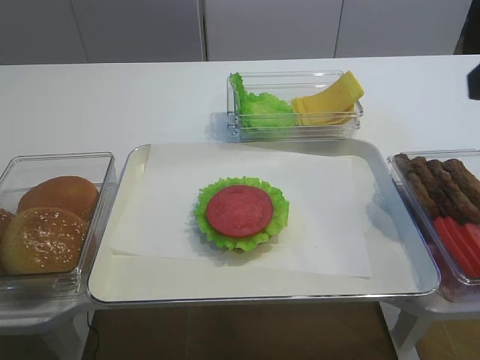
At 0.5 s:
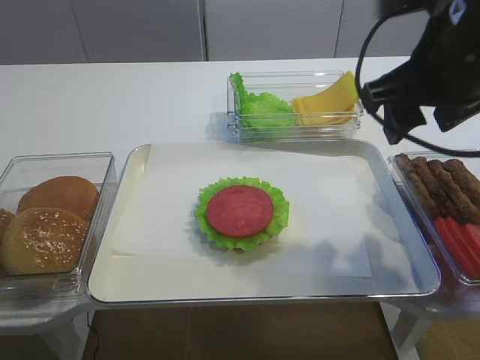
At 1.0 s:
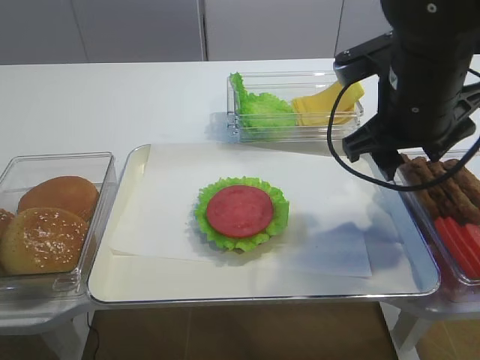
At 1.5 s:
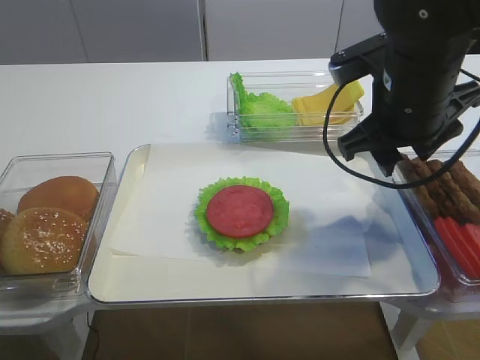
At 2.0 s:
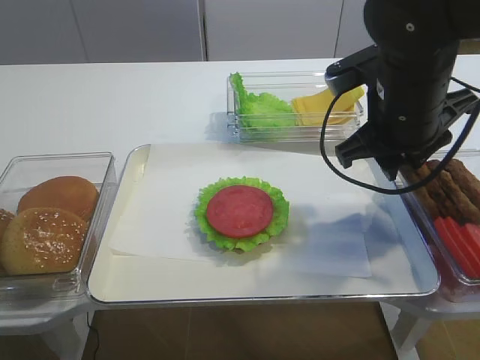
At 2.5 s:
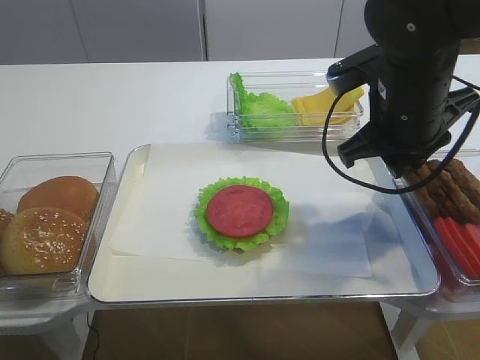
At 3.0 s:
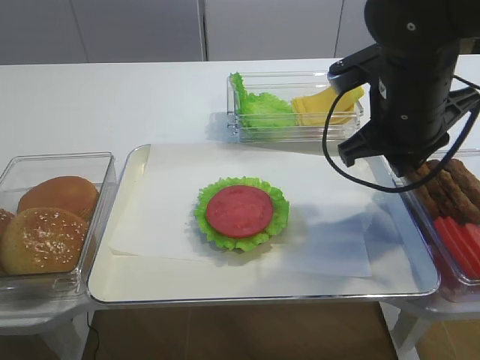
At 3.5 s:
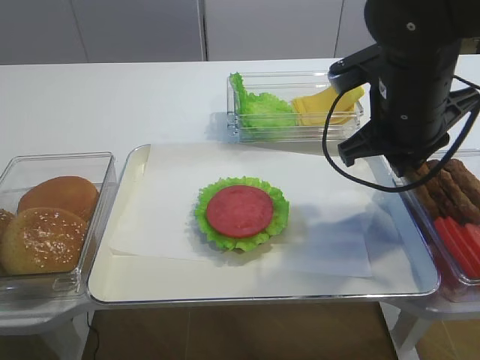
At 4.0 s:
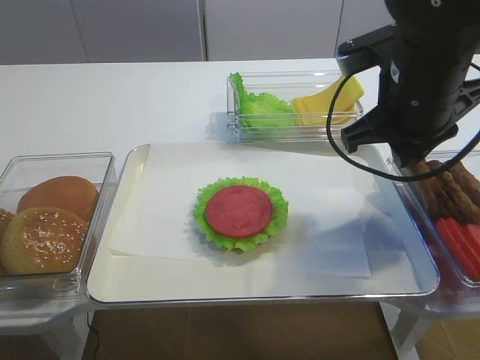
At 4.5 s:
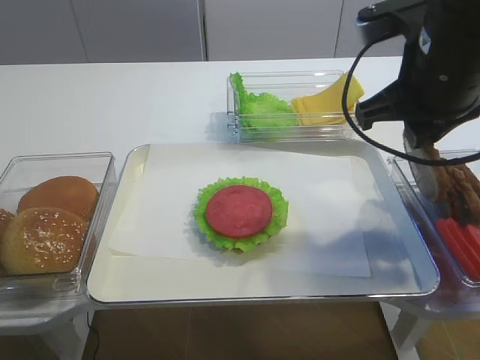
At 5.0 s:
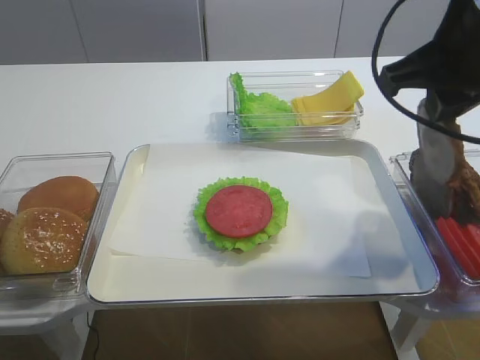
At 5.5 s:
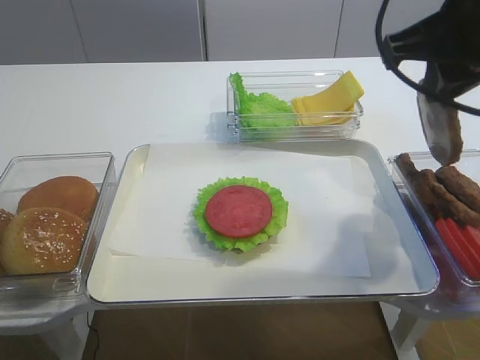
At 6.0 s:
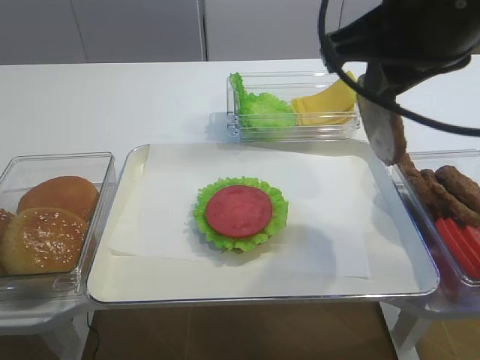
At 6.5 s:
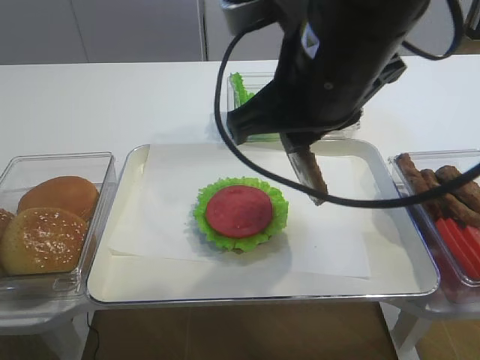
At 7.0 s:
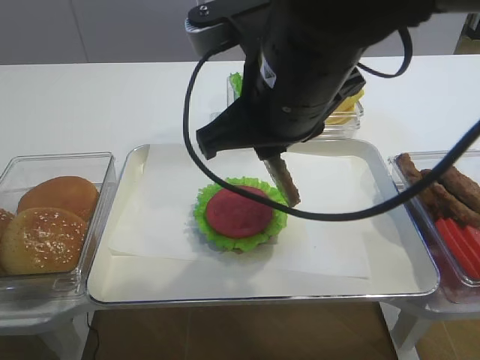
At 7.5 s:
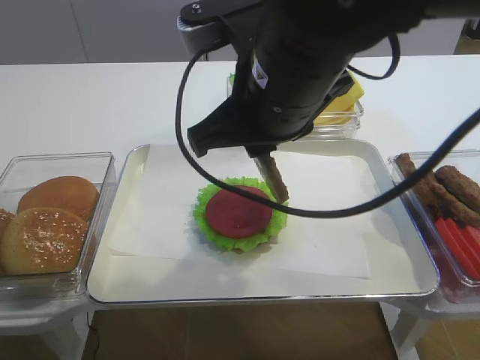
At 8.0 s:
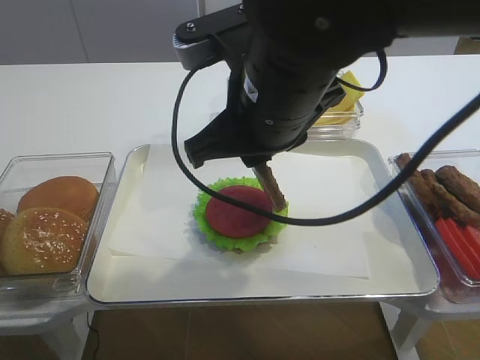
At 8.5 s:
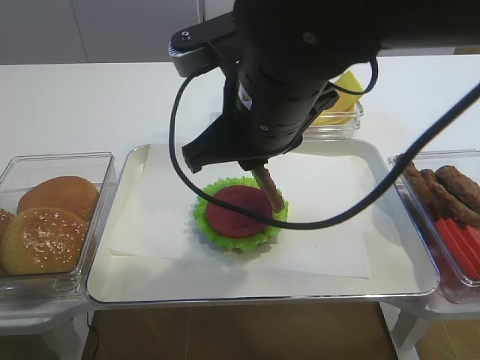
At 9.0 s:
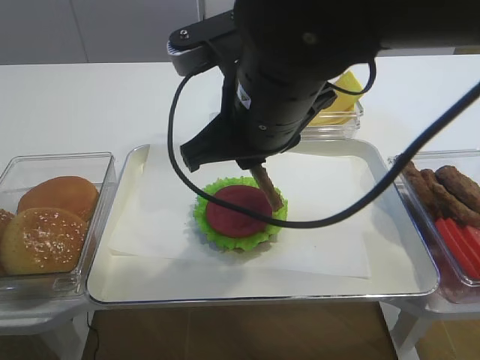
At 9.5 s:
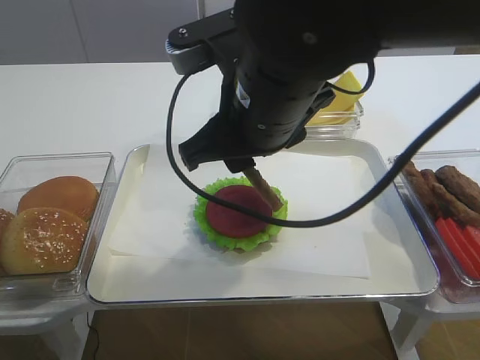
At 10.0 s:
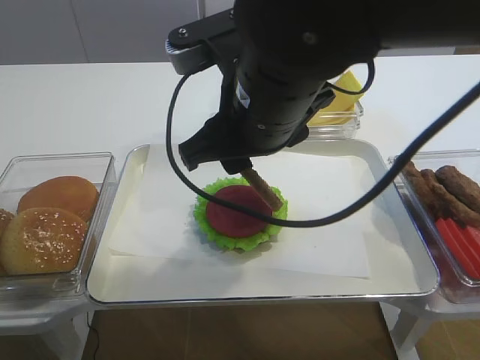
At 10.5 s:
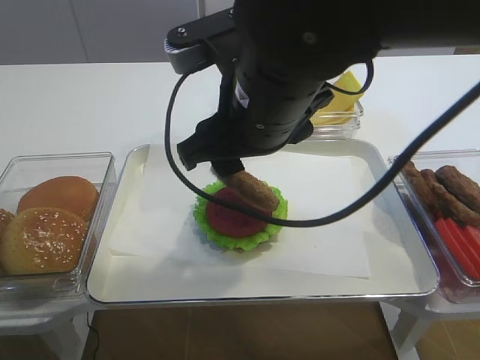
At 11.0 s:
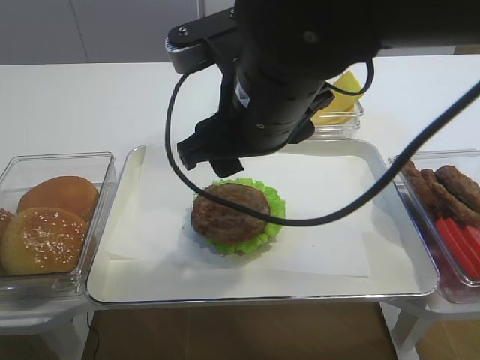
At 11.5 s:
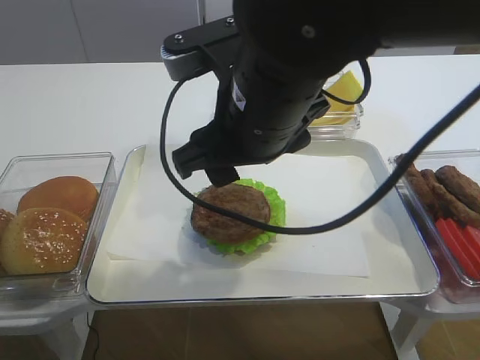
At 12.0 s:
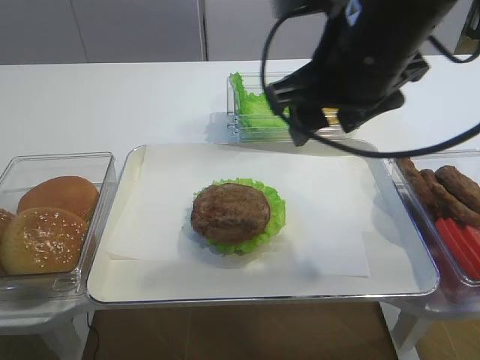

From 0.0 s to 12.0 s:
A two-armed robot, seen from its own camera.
Step, from 0.0 s to 5.0 s: Pick up the cutlet with the right gripper.
Step, from 5.5 s to 11.5 s: Place the cutlet on the tomato slice with the right gripper.
From 0.0 s to 2.0 s: The right gripper moves forward, downward and to the left, approximately 20 cm, and closes up.
From 2.0 s to 4.0 s: The right gripper closes its fingers.
From 4.0 s to 6.0 s: The right gripper moves upward and backward, some 10 cm.
From 6.0 s to 8.0 s: The right gripper travels to the left and downward by roughly 10 cm.
From 8.0 s to 10.0 s: The right gripper opens.
From 10.0 s to 12.0 s: The right gripper travels to the right by roughly 5 cm.

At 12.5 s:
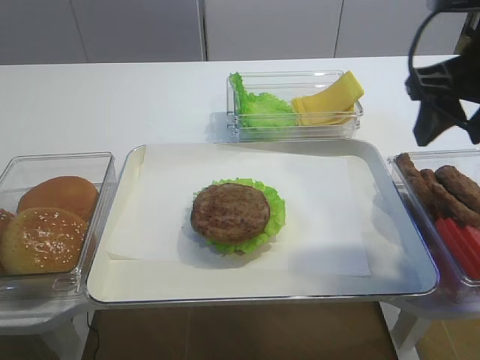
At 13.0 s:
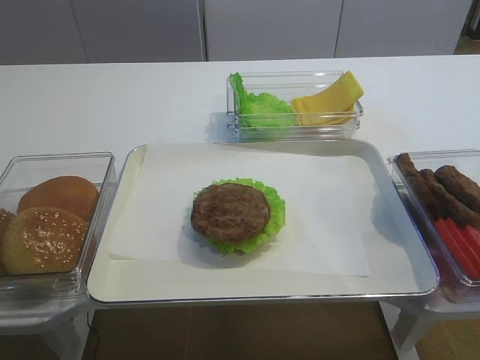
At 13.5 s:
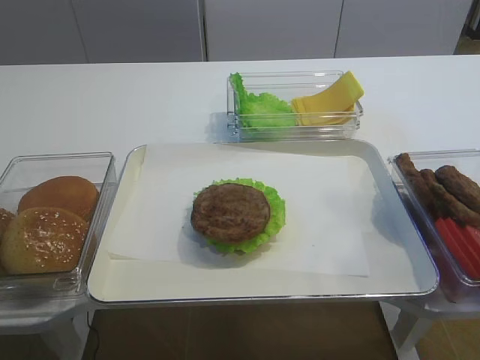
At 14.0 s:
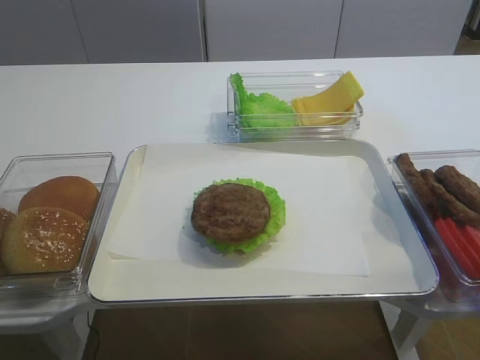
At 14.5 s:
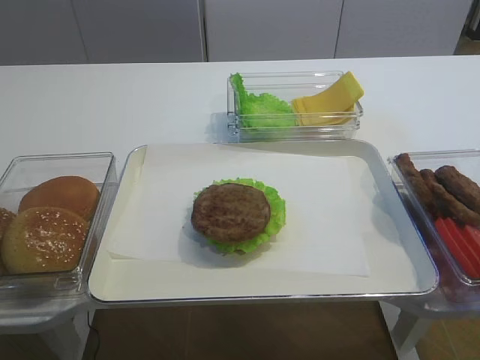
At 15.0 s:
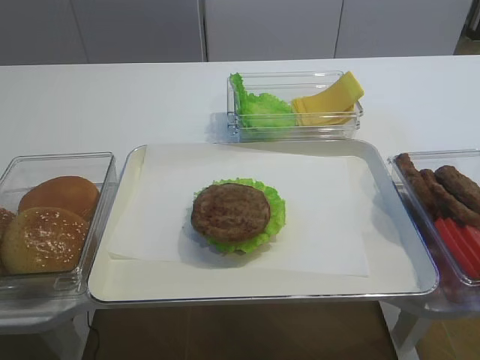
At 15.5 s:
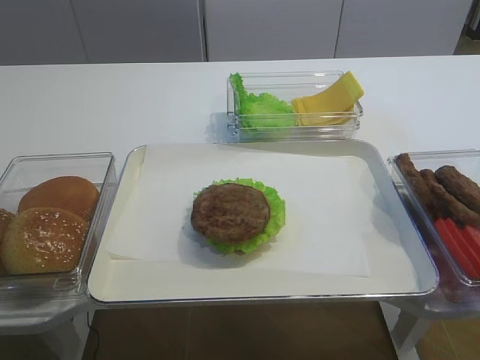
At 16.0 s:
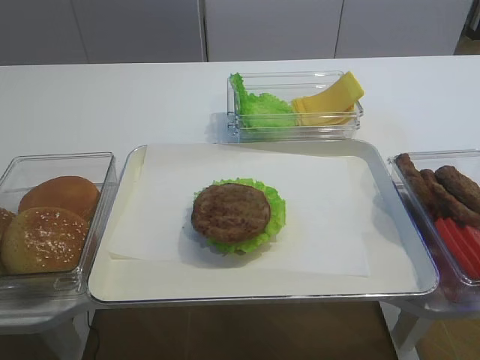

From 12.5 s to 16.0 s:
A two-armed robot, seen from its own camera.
From 12.5 s to 14.5 s: The right gripper moves backward, some 25 cm.

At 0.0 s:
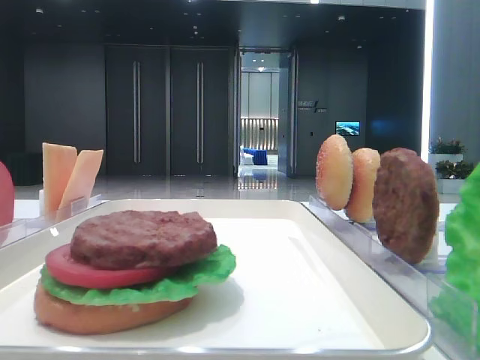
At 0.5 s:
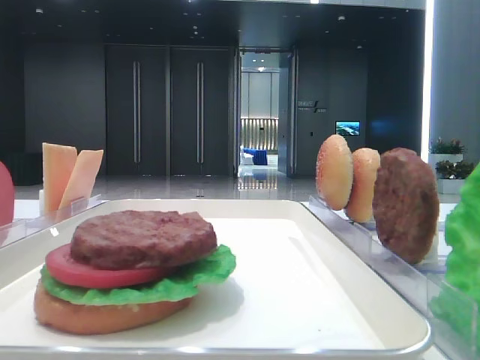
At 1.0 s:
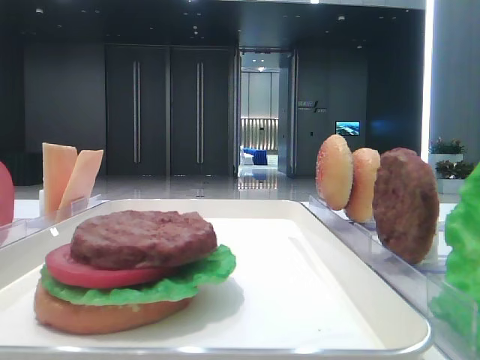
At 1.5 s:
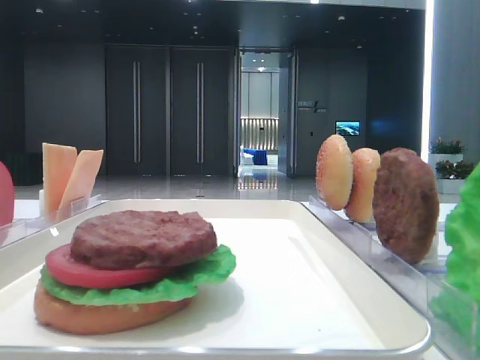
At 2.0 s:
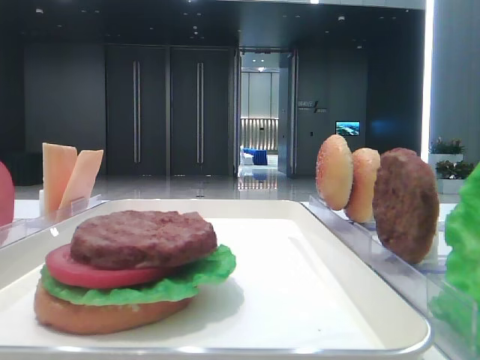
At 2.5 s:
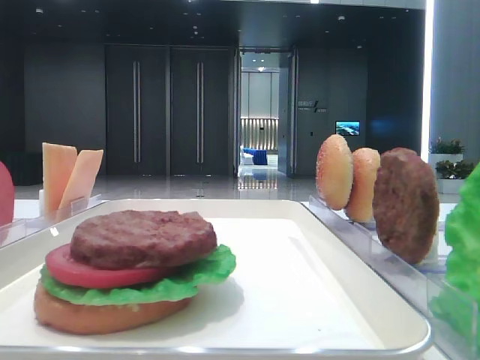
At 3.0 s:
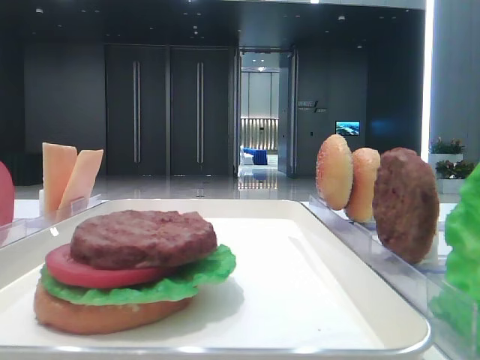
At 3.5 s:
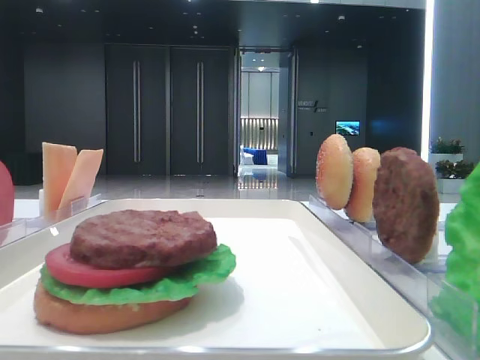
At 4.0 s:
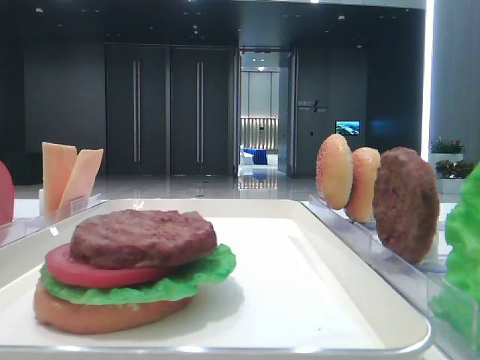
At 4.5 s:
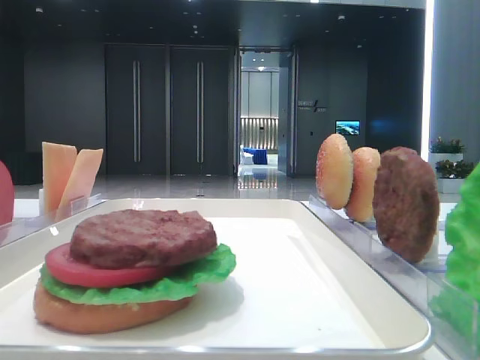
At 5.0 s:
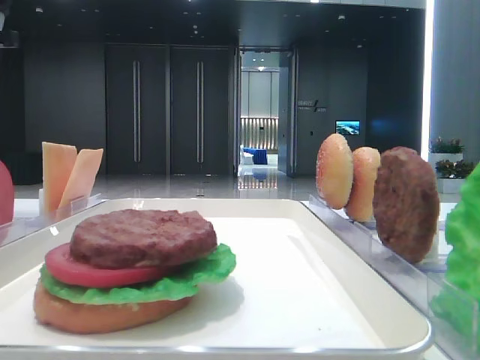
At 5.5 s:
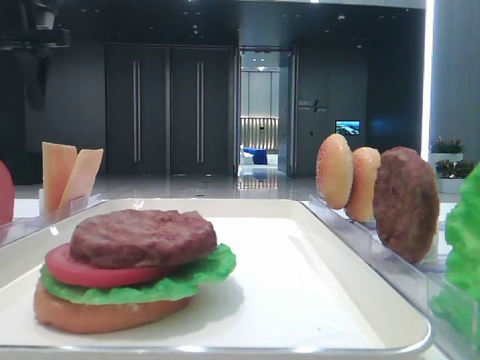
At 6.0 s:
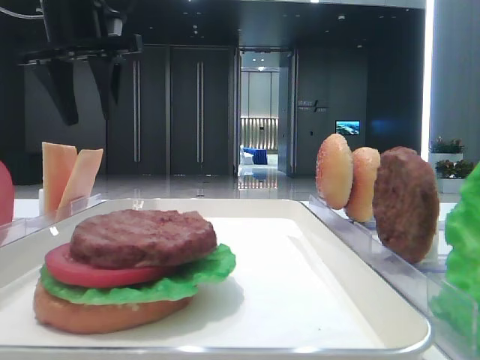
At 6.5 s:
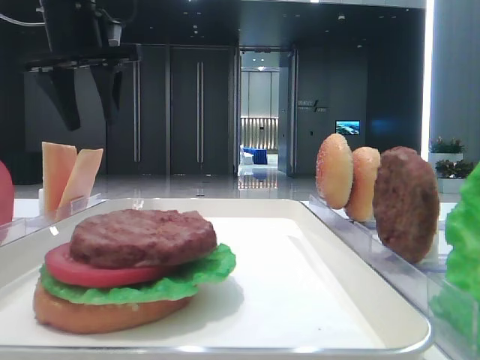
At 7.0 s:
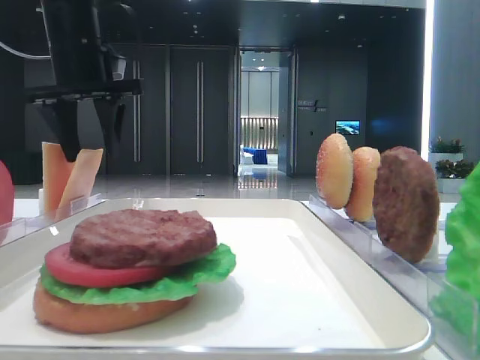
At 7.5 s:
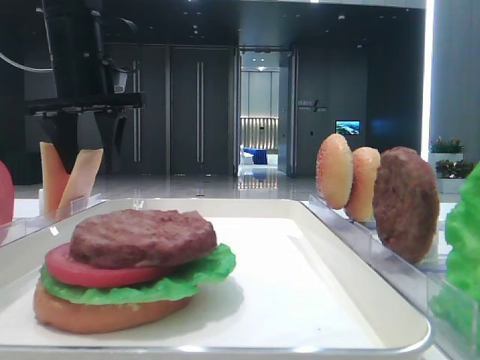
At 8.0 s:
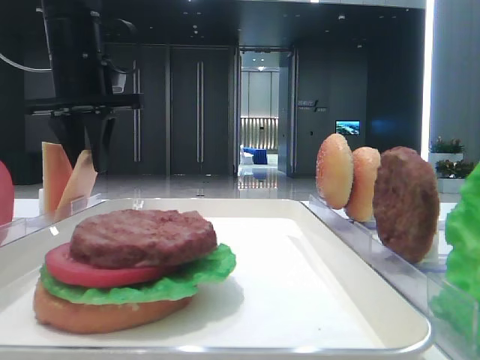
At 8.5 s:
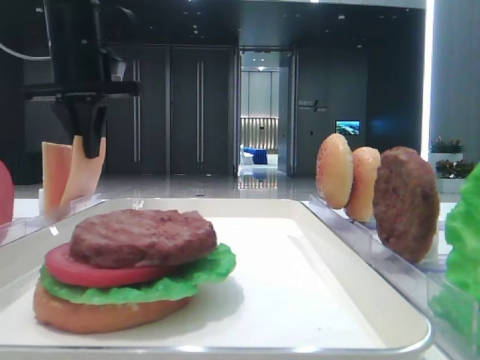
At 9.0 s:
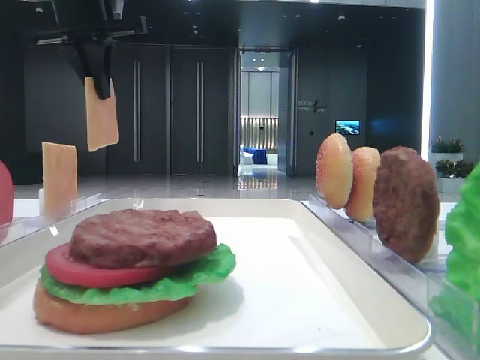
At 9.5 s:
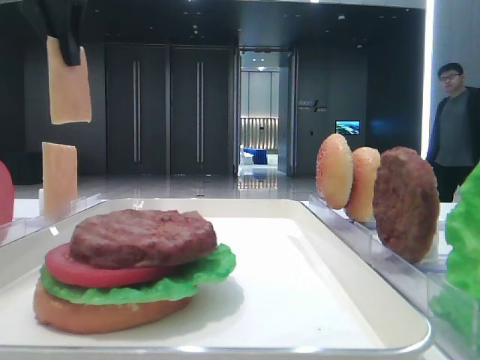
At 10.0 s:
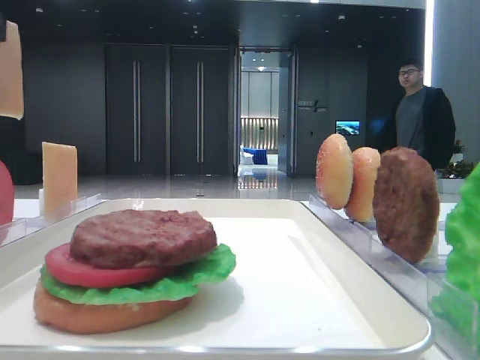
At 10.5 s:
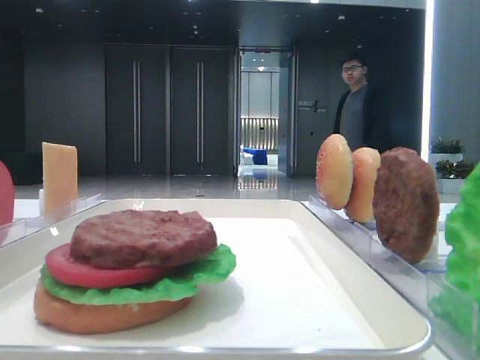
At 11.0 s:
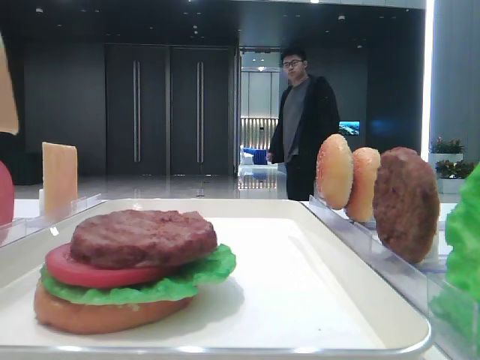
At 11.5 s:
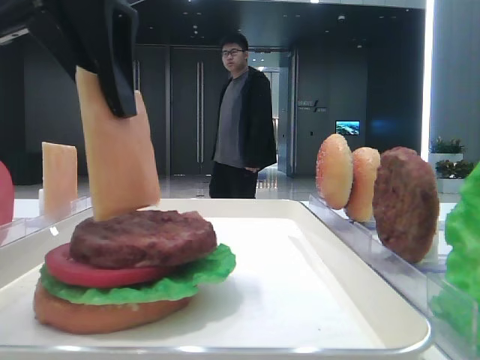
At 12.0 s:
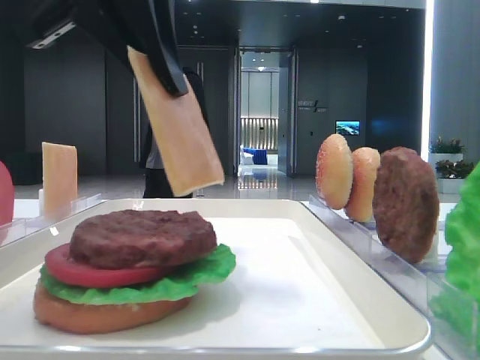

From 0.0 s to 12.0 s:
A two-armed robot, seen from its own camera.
Step, from 0.0 s to 8.0 s: Pick up the cheese slice with the left hand.
From 4.0 s to 6.0 s: The left gripper moves to the right and forward, roughly 20 cm.
From 6.0 s to 8.0 s: The left gripper travels downward by some 5 cm, and closes up.
From 8.0 s to 10.0 s: The left gripper goes about 20 cm backward and upward, and closes up.
From 10.0 s to 12.0 s: The left gripper goes roughly 15 cm to the right, downward and backward.
